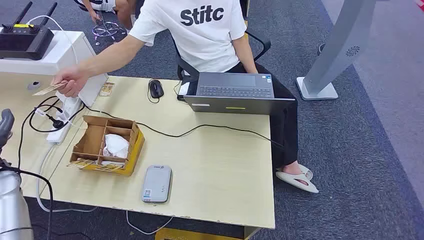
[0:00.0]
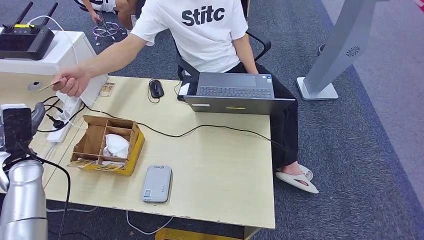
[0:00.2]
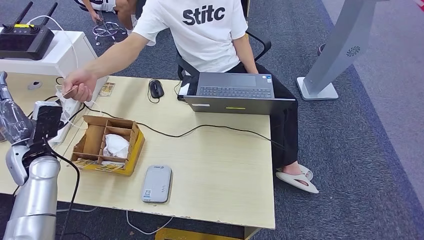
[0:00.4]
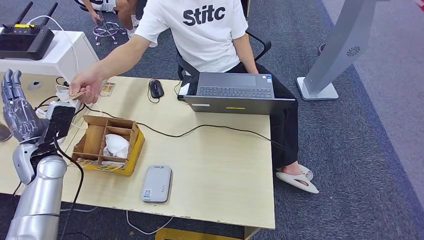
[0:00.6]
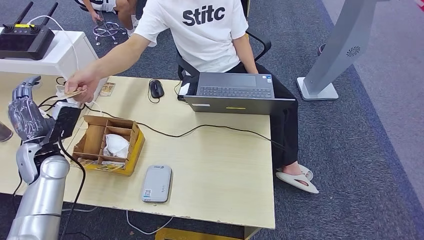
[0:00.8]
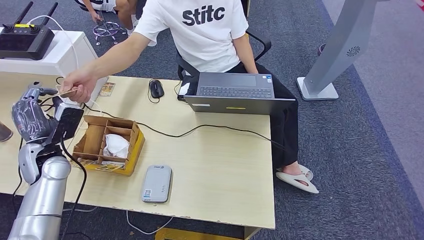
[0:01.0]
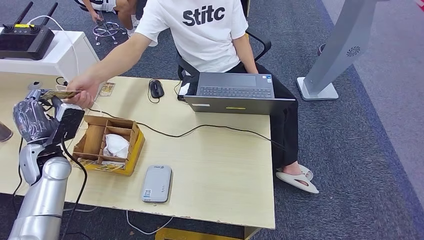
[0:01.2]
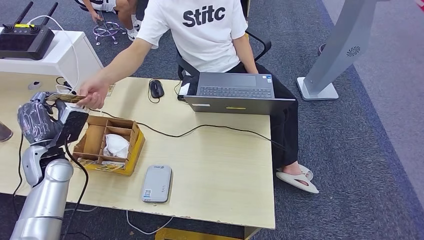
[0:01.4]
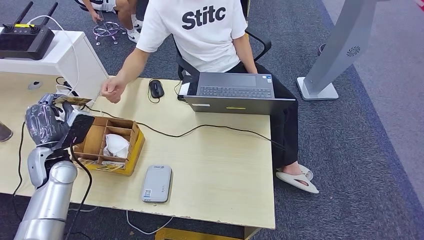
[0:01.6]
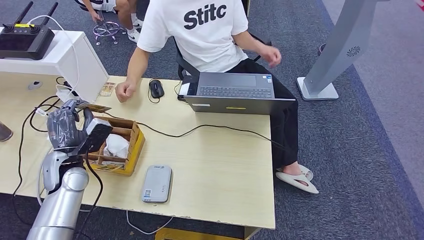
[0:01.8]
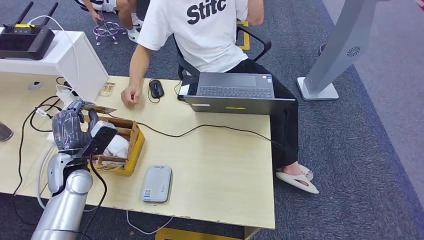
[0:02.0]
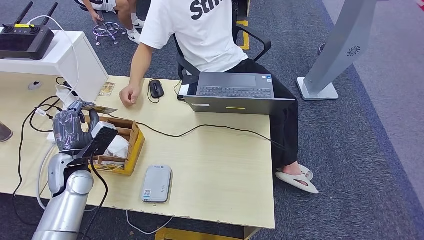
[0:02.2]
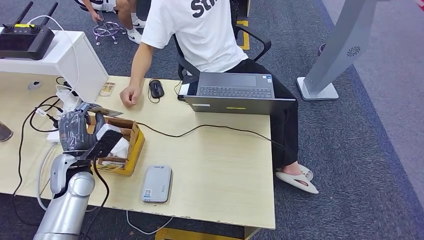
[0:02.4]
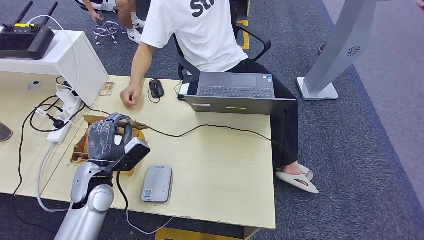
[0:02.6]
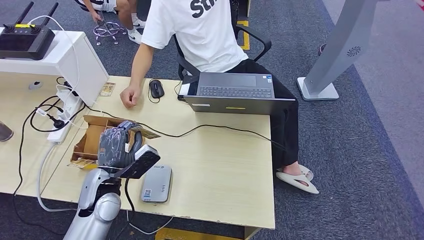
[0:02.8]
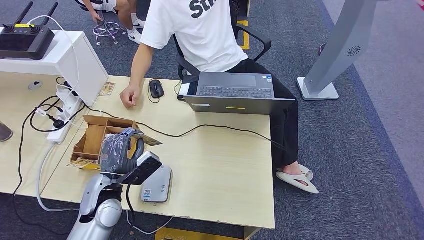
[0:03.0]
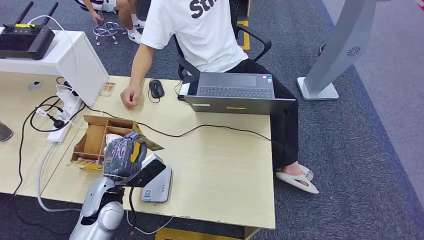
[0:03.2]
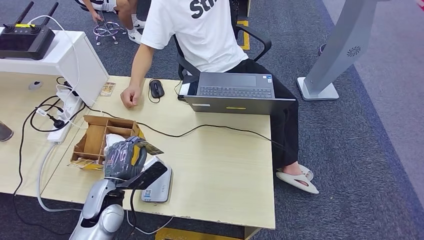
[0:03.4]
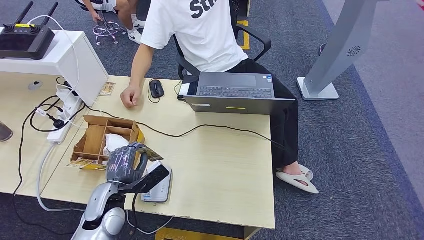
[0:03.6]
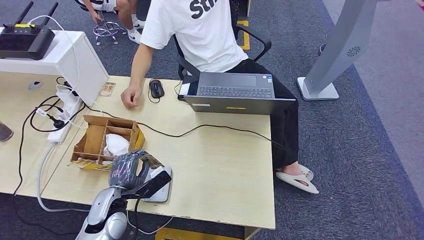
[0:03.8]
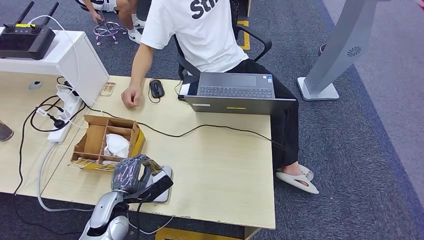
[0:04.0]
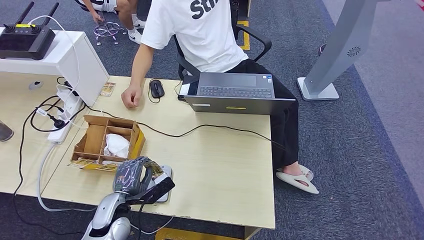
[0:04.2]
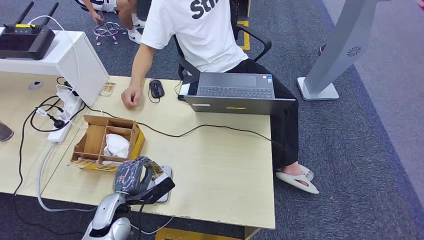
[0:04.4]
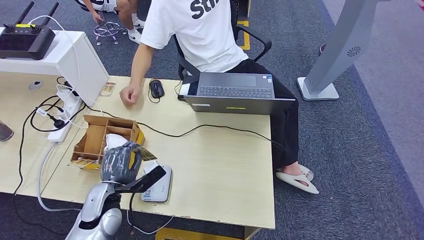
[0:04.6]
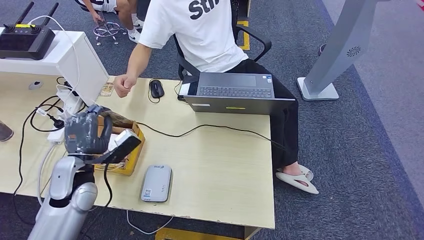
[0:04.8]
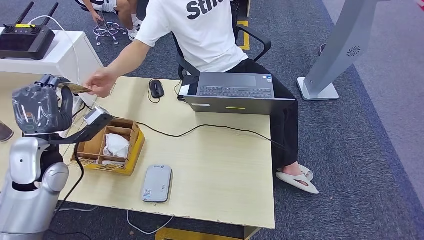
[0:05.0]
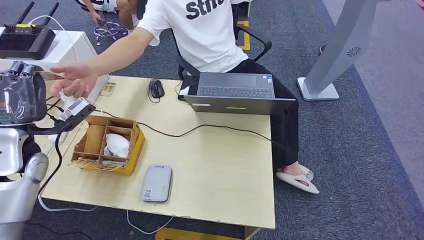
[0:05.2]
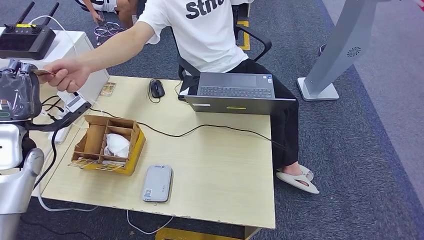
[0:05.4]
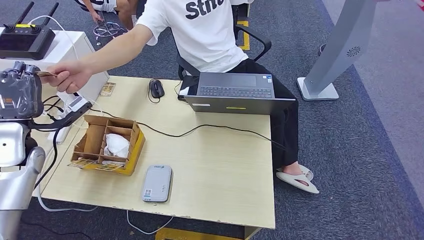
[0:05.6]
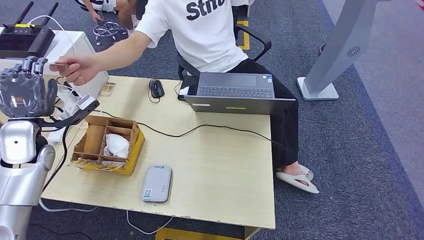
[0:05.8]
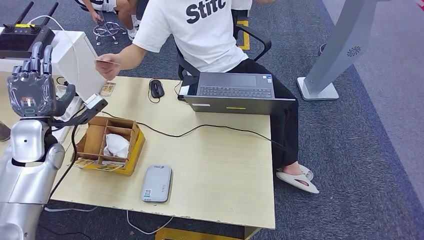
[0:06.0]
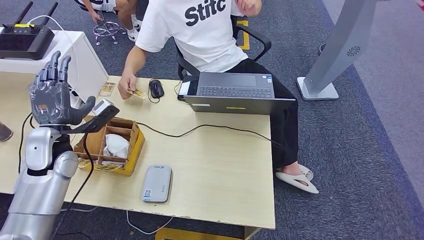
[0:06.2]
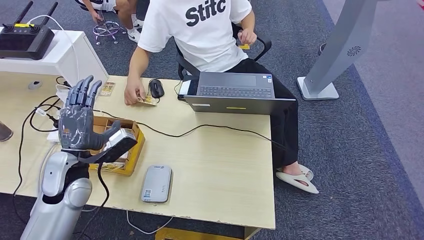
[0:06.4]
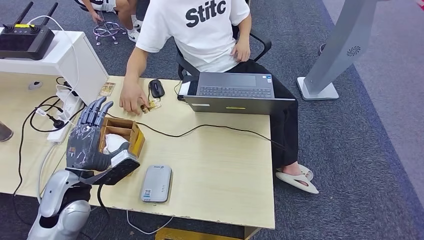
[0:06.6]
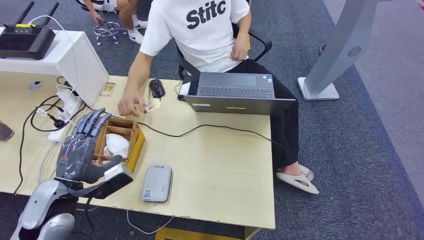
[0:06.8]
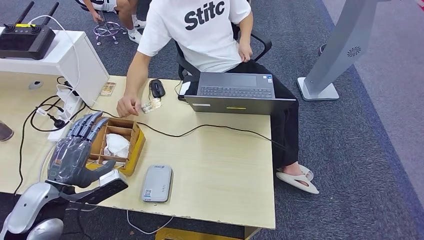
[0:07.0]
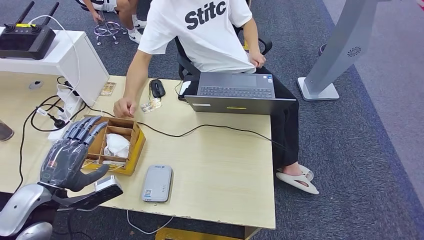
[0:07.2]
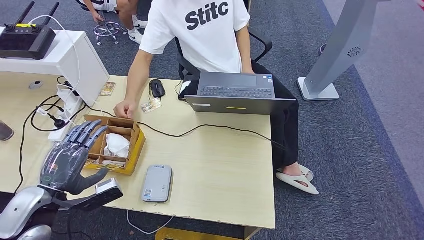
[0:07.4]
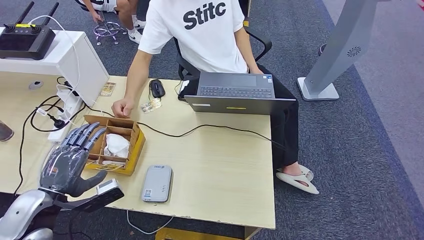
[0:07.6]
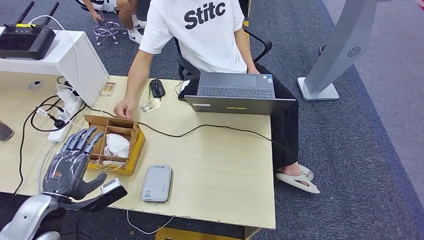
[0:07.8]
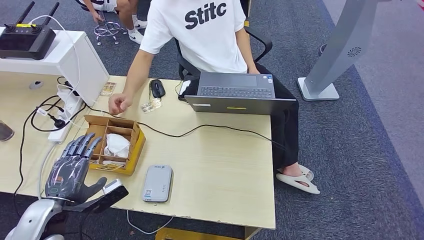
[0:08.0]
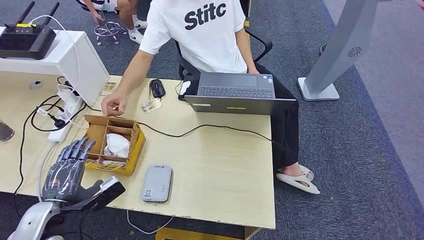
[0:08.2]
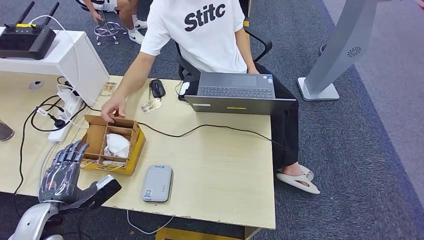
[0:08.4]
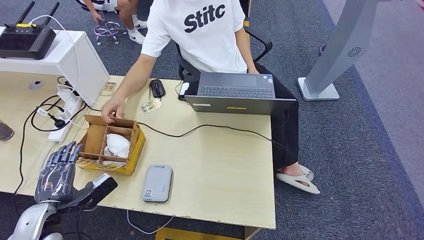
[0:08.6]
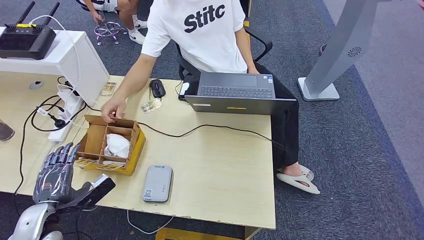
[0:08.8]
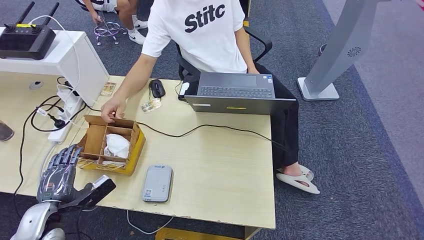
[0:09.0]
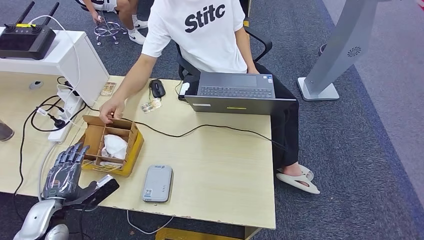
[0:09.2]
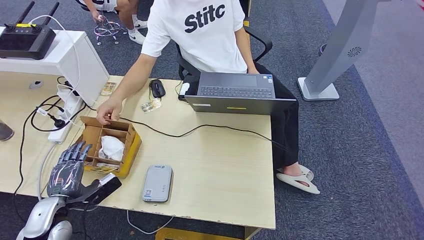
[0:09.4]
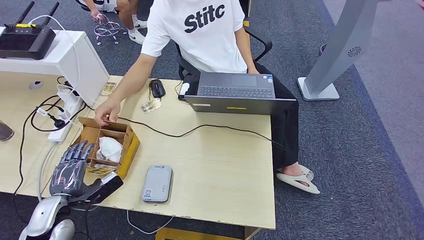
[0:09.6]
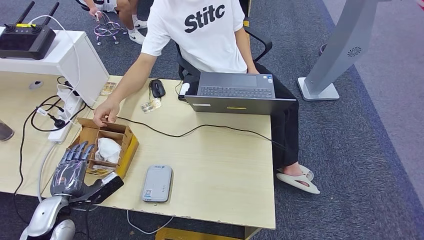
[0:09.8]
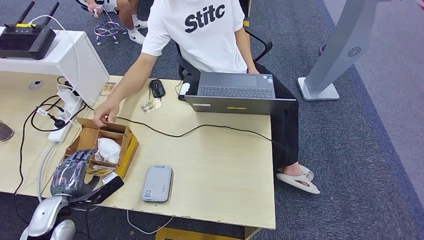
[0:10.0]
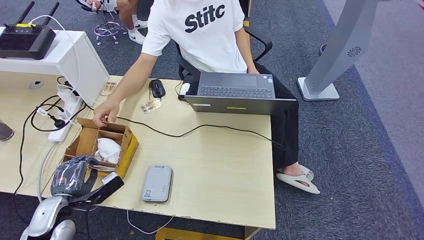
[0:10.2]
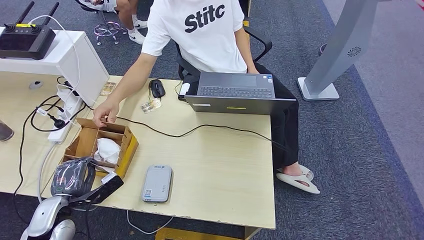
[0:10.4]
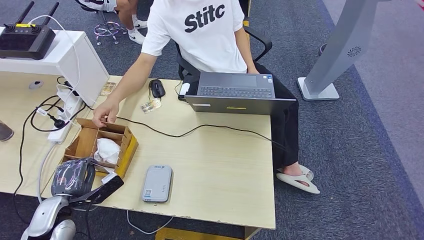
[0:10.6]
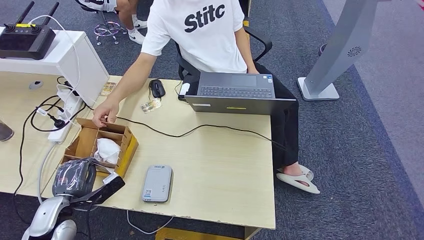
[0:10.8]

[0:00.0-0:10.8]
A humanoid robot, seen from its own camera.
Step, 0:00.0 to 0:01.6: Take the ID card from the person's hand.
Step, 0:01.8 to 0:04.6: Place the ID card on the card reader.
Step, 0:04.8 to 0:06.2: Hand the ID card to the person.
0:01.6 to 0:03.0: The left hand moves to the right and backward, about 15 cm.
0:04.6 to 0:06.2: The left hand travels upward, forward and to the left by roughly 20 cm.
0:06.2 to 0:07.8: The left hand travels backward by about 15 cm.
0:07.8 to 0:09.2: The left hand travels downward by roughly 10 cm.
0:09.2 to 0:10.8: There are only small adjustments of the hands.

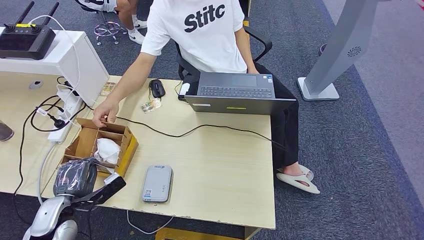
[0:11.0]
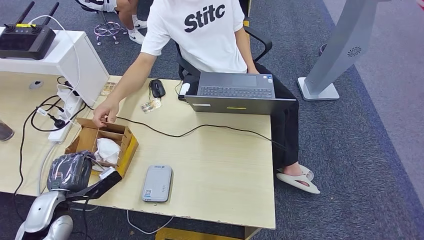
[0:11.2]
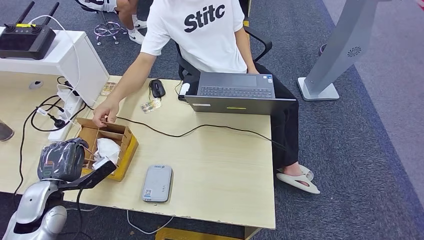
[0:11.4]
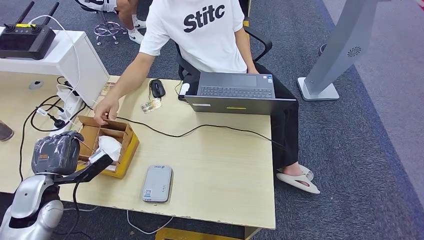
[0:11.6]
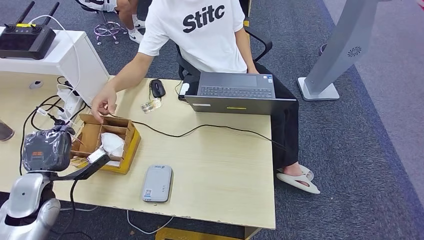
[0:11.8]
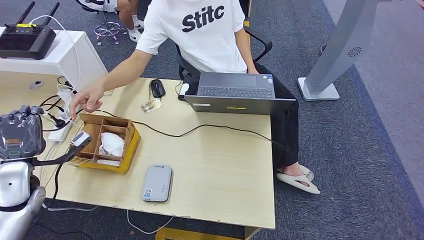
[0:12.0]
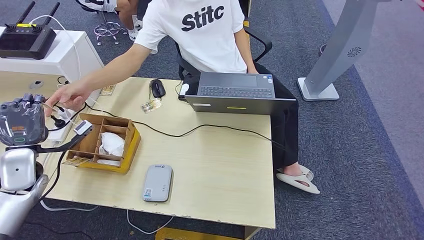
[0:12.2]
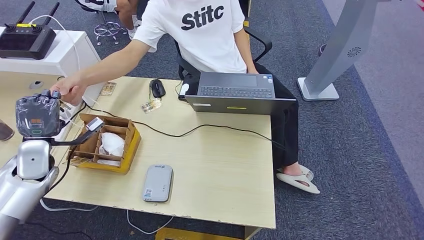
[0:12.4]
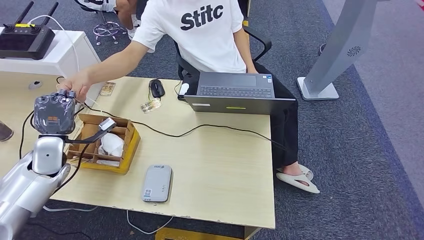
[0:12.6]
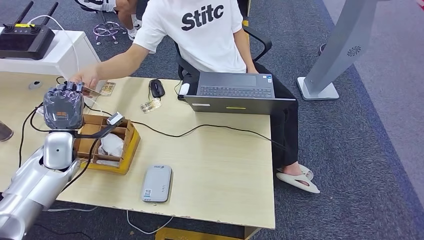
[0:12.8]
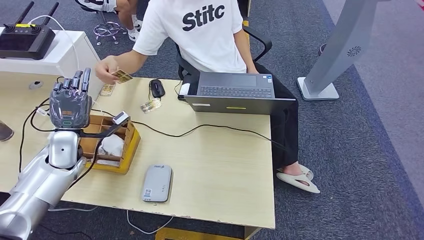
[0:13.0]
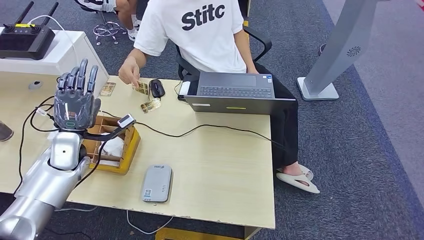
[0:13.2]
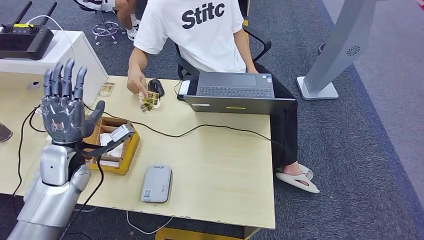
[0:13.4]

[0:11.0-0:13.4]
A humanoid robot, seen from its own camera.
Step, 0:11.8 to 0:13.4: Hand the room key to the person.
0:11.0 to 0:12.2: The left hand is displaced upward, forward and to the left by about 15 cm.
0:12.2 to 0:13.4: The left hand moves to the right, approximately 10 cm.
